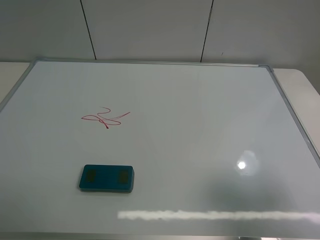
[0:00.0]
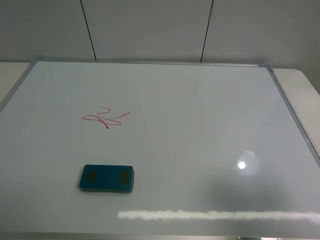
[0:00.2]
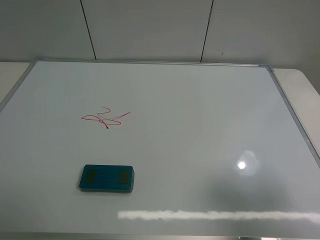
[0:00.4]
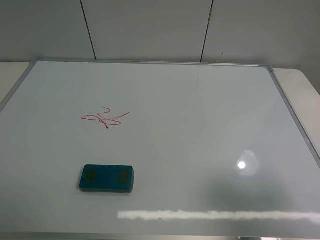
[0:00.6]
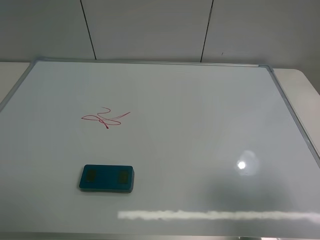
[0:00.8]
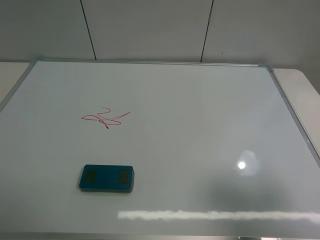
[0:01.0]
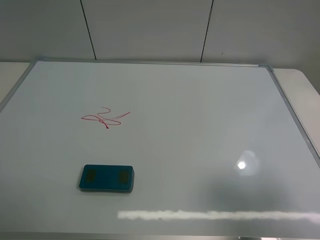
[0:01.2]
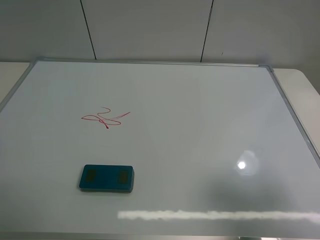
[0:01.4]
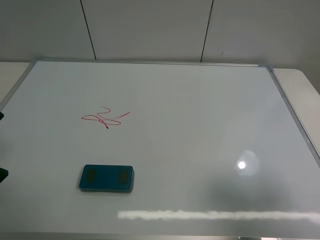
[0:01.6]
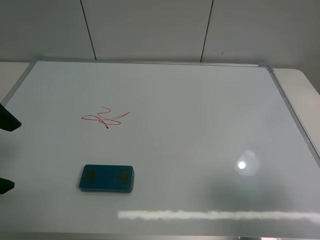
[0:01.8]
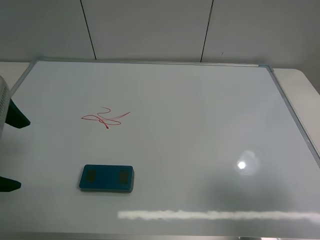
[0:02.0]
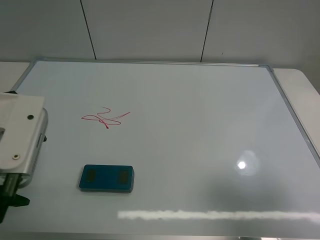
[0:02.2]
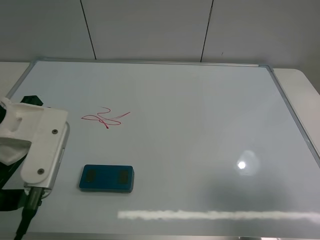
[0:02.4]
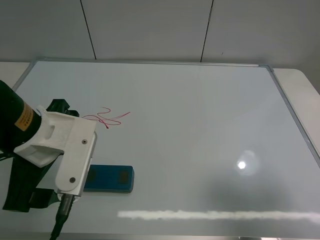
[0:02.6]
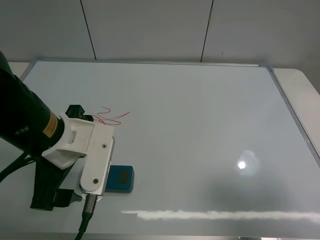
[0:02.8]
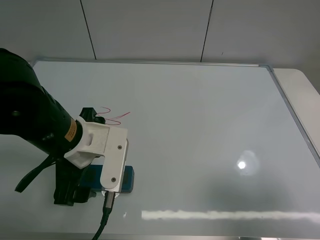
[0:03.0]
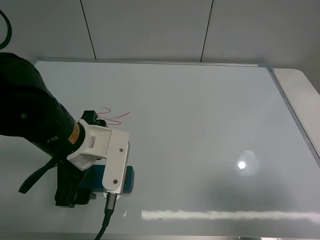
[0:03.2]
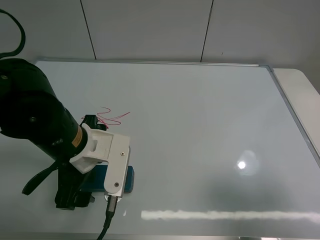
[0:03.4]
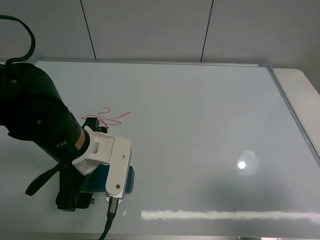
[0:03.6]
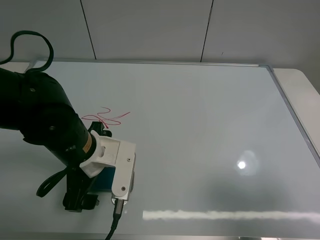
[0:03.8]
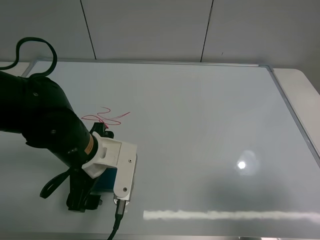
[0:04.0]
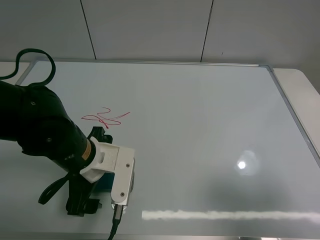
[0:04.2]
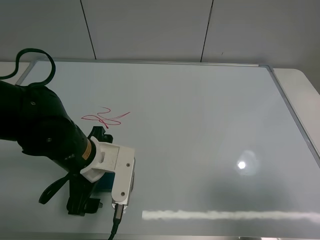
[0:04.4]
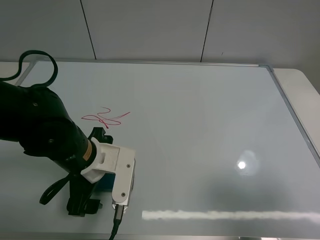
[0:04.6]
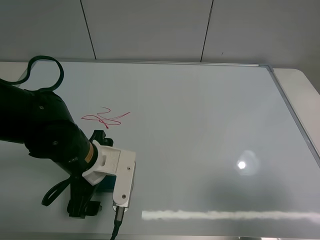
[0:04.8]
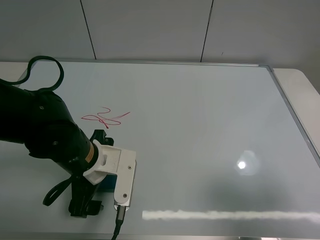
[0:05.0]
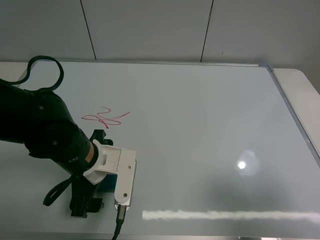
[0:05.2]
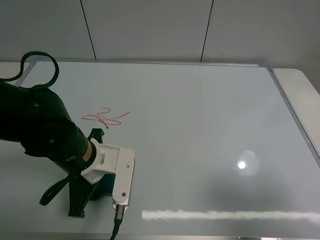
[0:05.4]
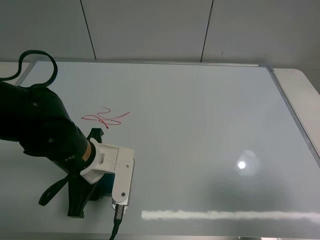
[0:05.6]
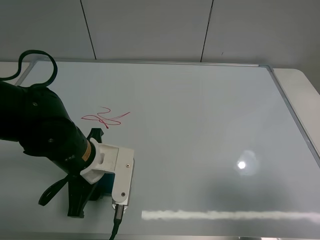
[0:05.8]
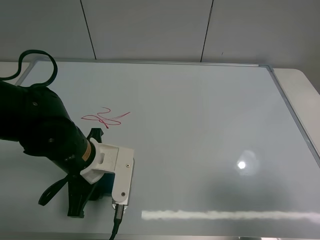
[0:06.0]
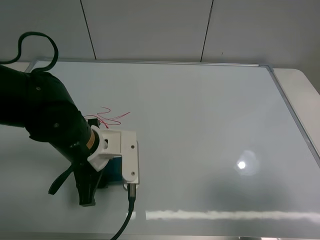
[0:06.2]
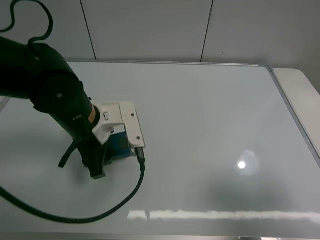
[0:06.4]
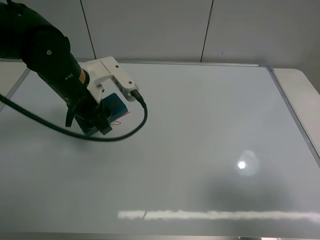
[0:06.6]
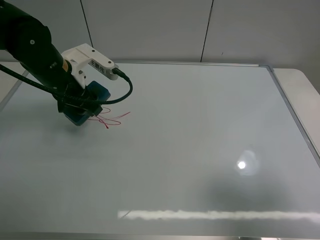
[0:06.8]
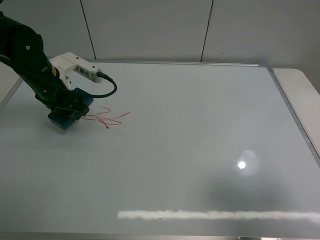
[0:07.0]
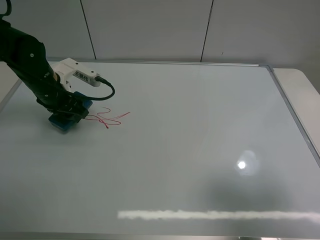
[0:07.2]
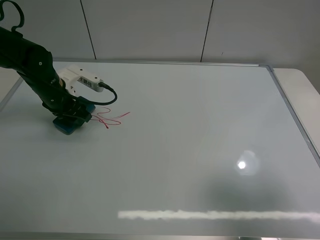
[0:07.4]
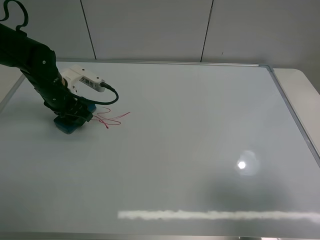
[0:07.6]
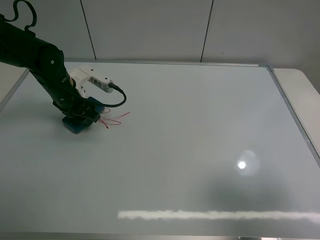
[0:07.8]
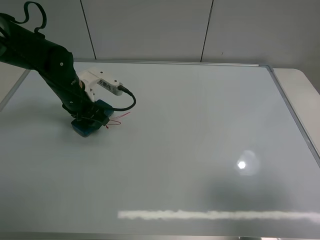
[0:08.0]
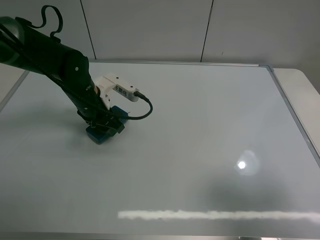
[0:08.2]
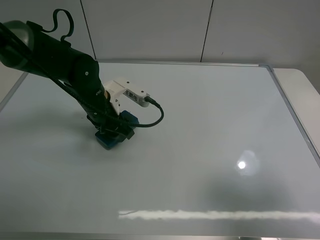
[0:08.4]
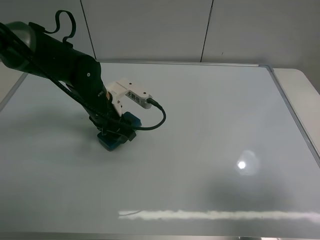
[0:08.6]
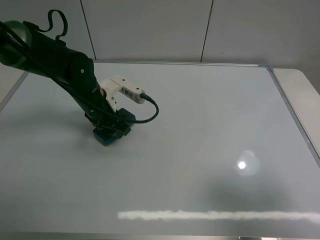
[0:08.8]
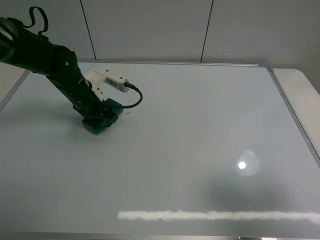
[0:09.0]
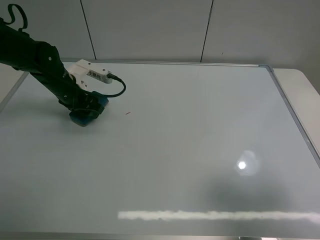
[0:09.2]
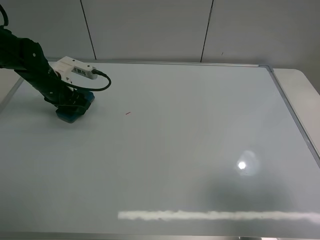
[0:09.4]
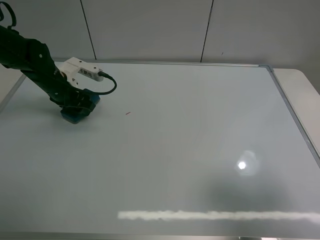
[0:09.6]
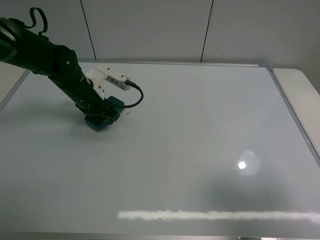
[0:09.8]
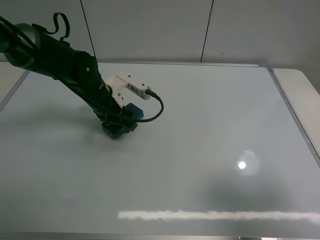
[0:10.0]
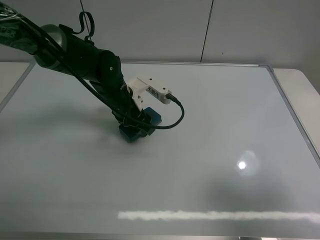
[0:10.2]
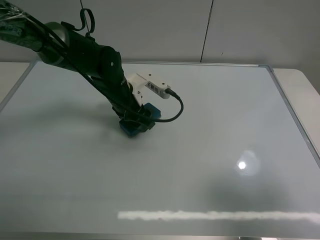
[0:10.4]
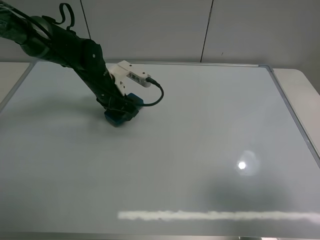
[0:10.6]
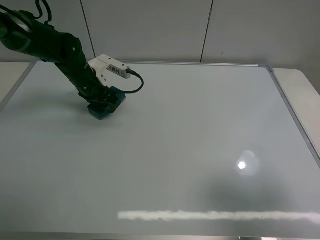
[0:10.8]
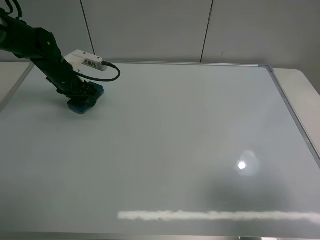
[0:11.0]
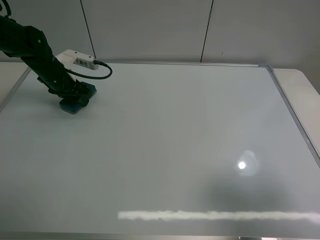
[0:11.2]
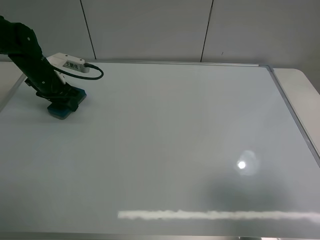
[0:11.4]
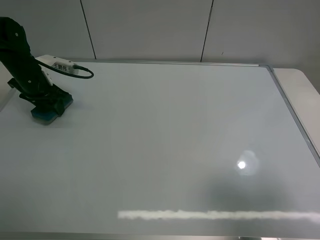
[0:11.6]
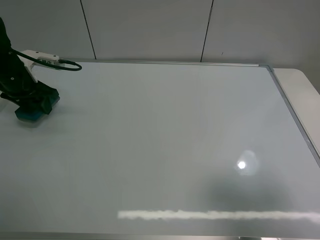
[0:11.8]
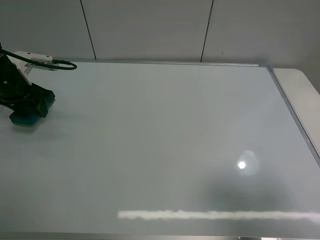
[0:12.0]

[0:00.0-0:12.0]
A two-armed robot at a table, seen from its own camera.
Task of the whole recording: use the left claw to pick up the whiteboard eraser, wipe the notes on the whiteboard clean, and then put them back in place.
Step, 0:00.0 to 0:05.2: Grasp the eraser with the left gripper.
Step, 0:05.4 to 0:11.2: Grasp the eraser and wipe the blackboard with the left gripper.
0:01.6 to 0:03.0: The left gripper heads to the right and downward, covering about 20 cm.
0:03.0 to 0:04.4: There are only small adjustments of the grippers.
0:04.4 to 0:06.0: The left gripper closes.
0:06.0 to 0:07.6: The left gripper moves forward and to the left, roughly 20 cm.
0:09.0 to 0:10.4: The left gripper travels to the right by approximately 10 cm.
0:10.4 to 0:12.0: The left gripper goes roughly 20 cm to the left.

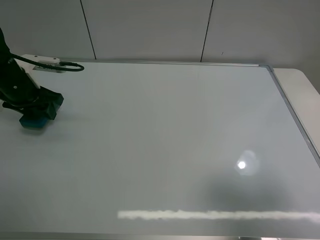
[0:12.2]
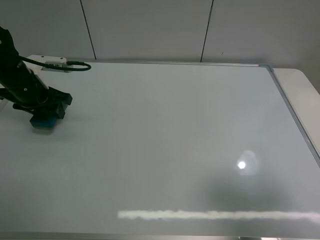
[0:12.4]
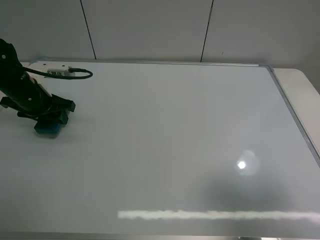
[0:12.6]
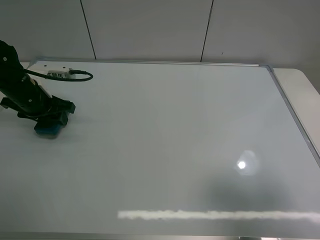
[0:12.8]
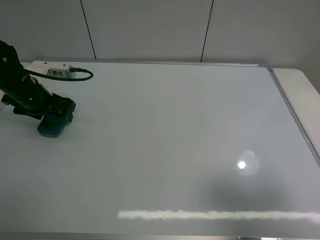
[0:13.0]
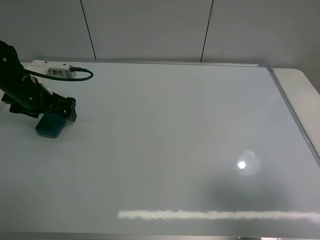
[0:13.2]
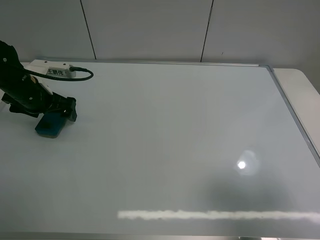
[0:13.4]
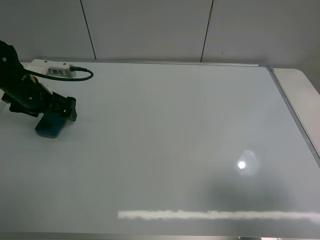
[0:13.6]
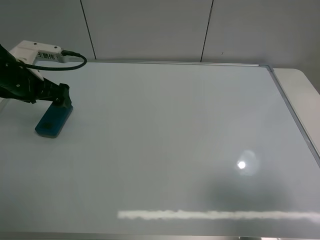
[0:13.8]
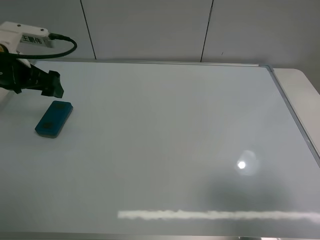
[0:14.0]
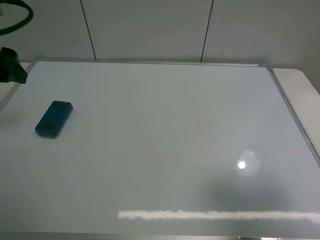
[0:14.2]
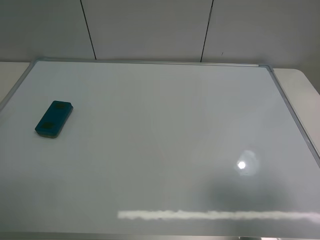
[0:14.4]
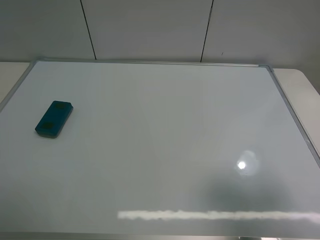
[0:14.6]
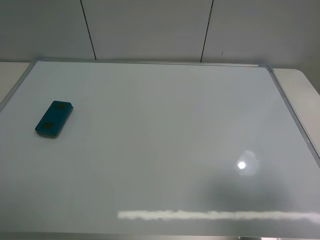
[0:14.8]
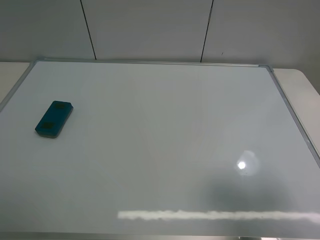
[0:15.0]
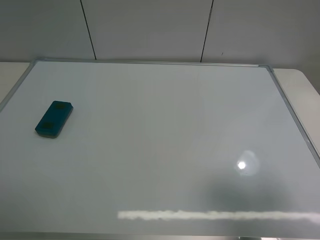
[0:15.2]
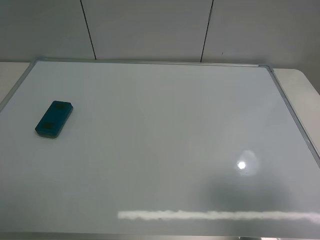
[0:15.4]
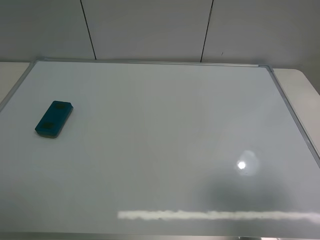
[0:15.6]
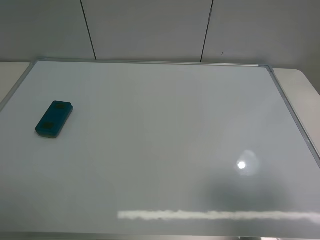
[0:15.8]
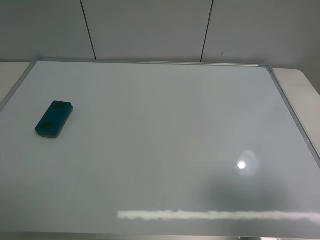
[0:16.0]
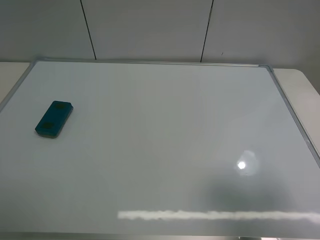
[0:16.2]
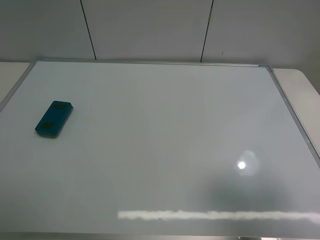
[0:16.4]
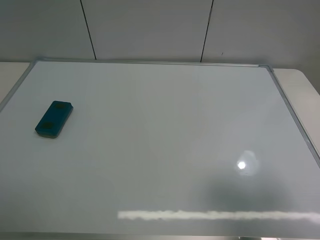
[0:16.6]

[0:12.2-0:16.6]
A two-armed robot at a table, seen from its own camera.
Task of the whole recording: use the left claw to pick up the whiteboard eraser, wipe the notes on the whiteboard clean, and then put them back in place.
0:12.2 to 0:13.6: The left gripper opens up.
0:13.6 to 0:15.2: The left gripper shifts approximately 40 cm backward and upward.
